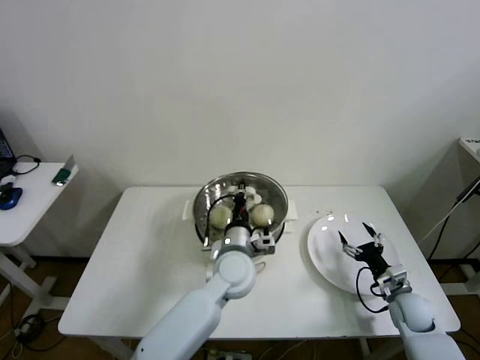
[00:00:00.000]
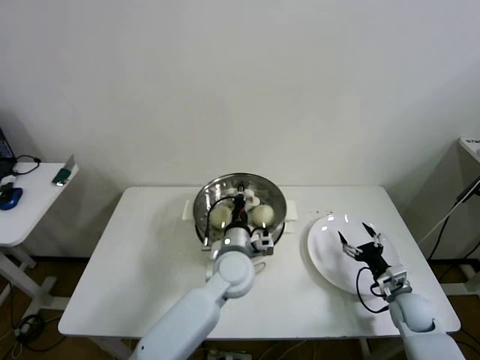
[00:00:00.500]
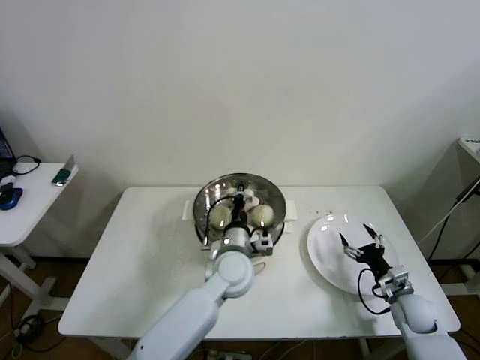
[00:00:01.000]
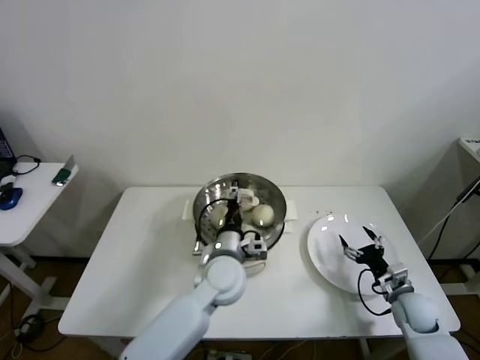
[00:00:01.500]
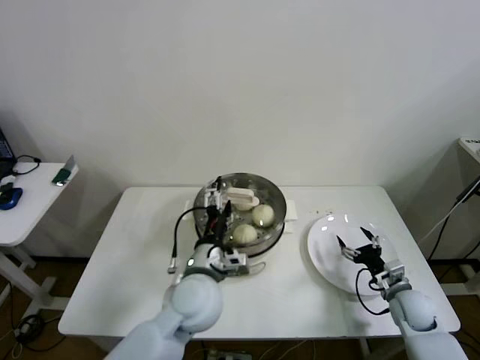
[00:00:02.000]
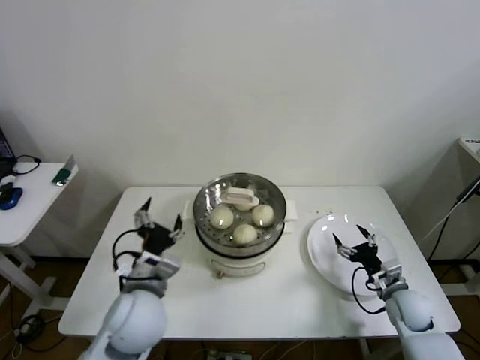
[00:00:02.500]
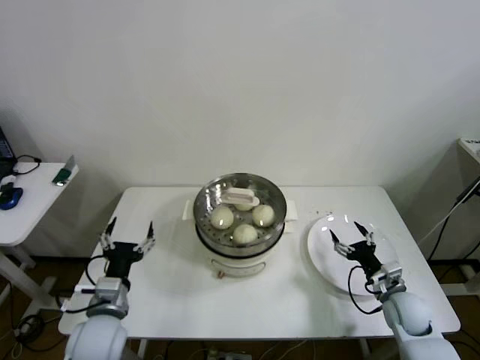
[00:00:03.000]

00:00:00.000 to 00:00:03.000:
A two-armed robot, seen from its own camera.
Step, 00:00:00.000 to 00:00:02.000: Place the pot lid on the steamer with left gripper.
00:00:00.000 to 00:00:01.500: The left gripper opens up.
00:00:01.500 to 00:00:03.000: The left gripper travels to the left and backward by some 25 cm, and opens its fingers.

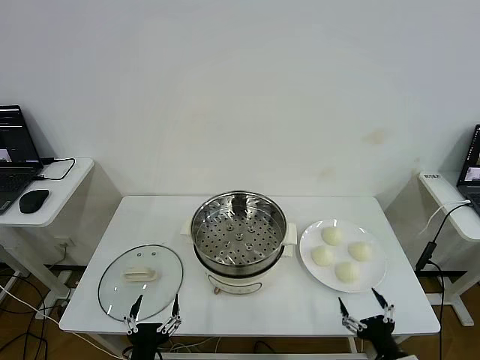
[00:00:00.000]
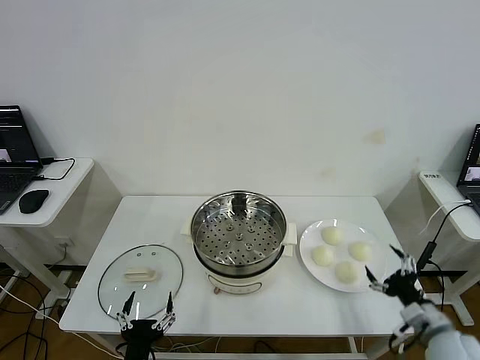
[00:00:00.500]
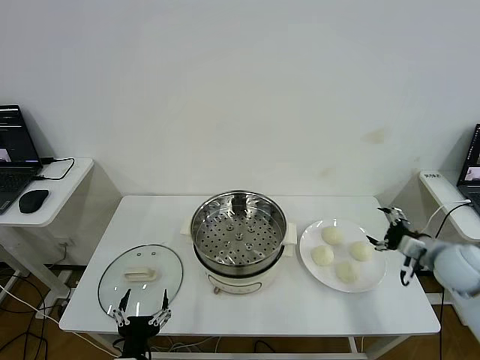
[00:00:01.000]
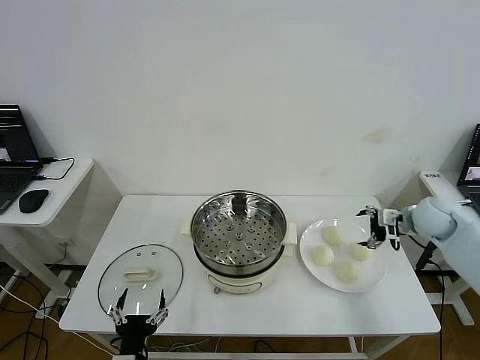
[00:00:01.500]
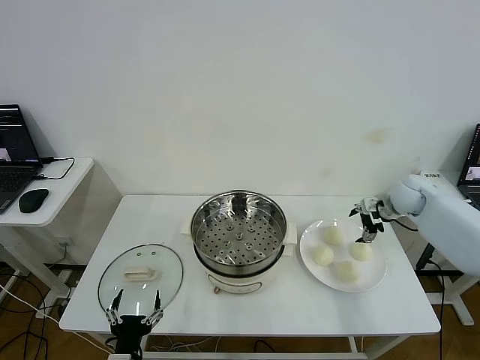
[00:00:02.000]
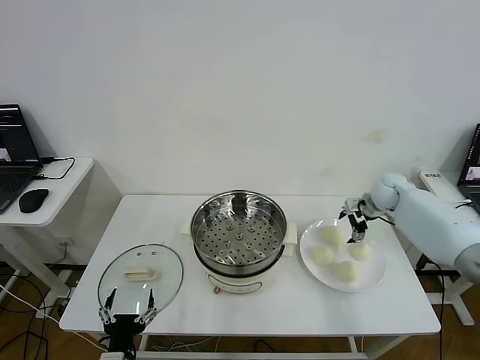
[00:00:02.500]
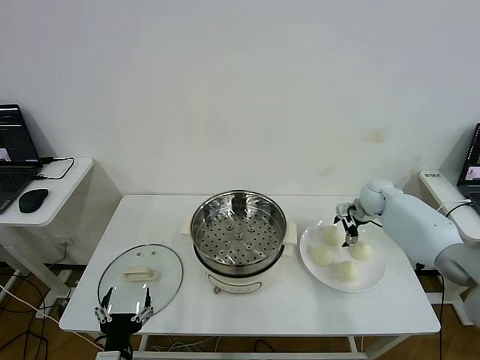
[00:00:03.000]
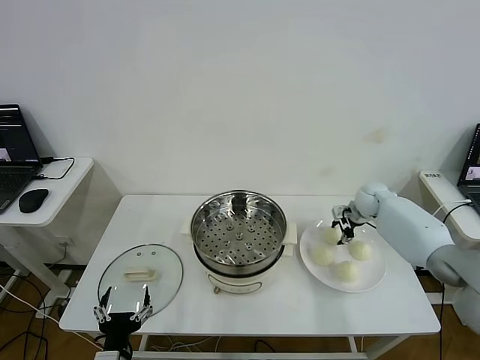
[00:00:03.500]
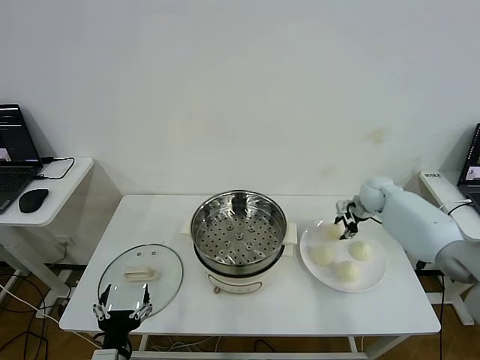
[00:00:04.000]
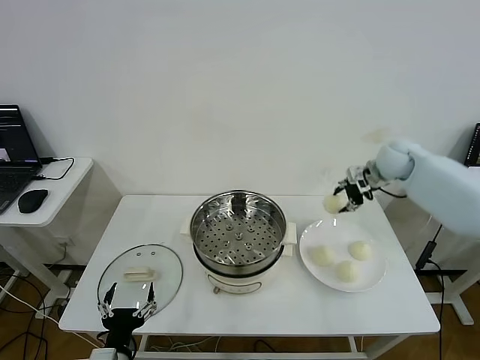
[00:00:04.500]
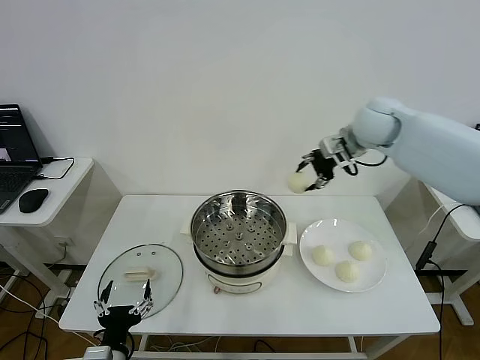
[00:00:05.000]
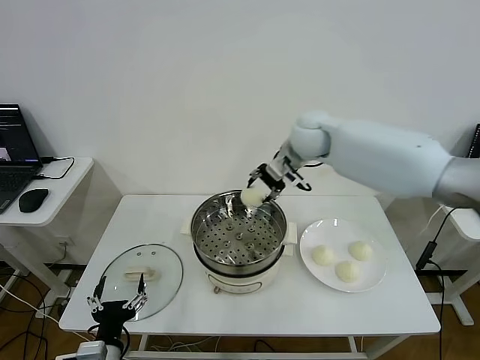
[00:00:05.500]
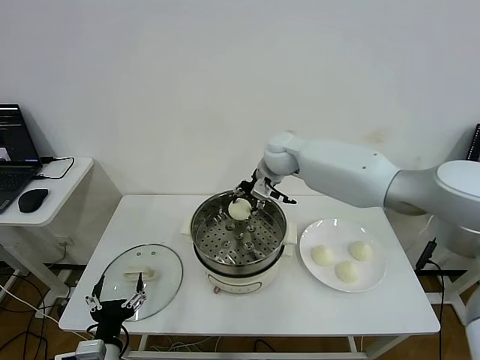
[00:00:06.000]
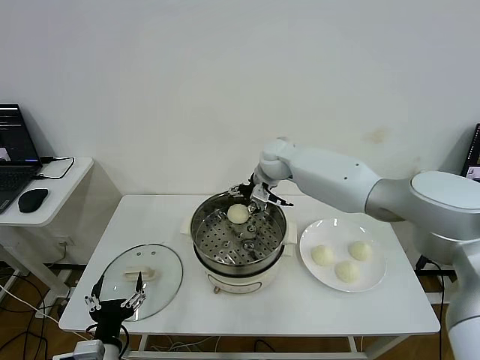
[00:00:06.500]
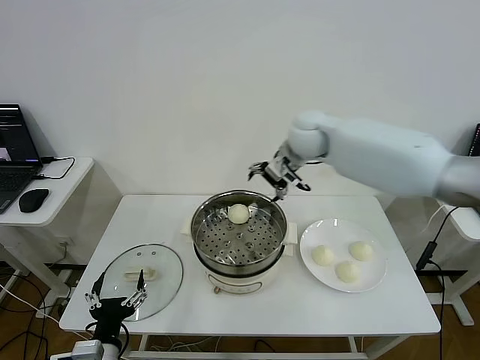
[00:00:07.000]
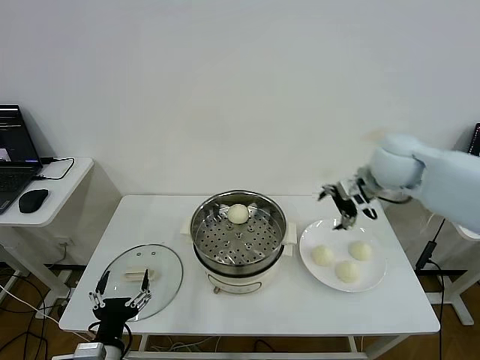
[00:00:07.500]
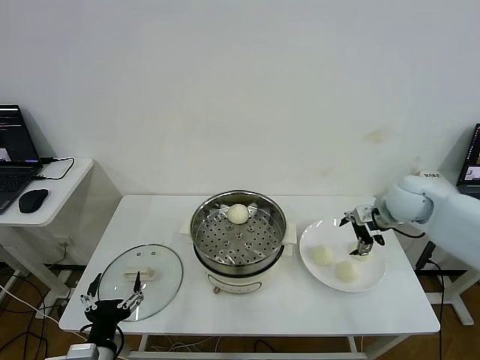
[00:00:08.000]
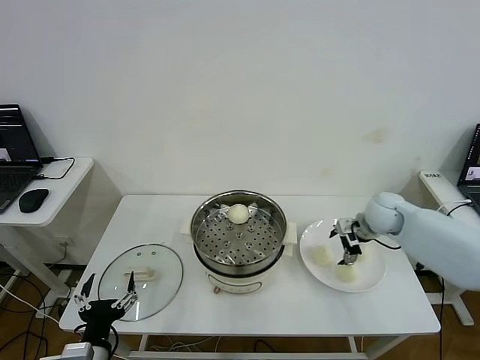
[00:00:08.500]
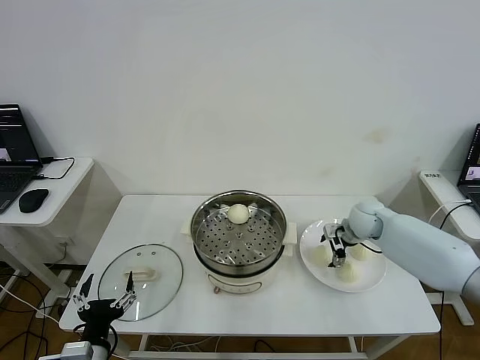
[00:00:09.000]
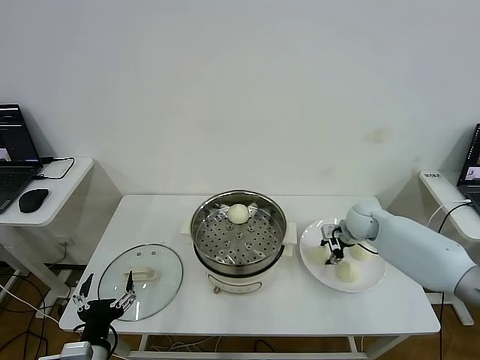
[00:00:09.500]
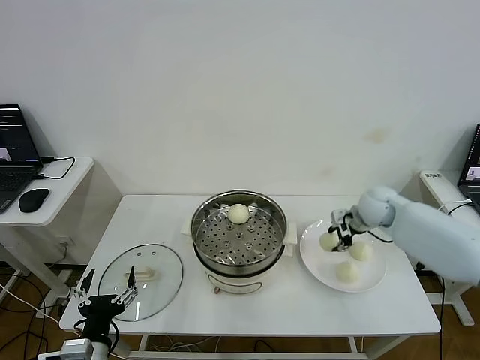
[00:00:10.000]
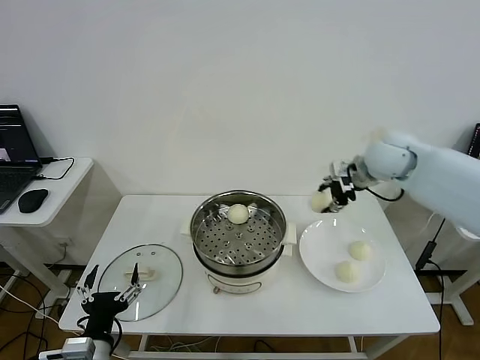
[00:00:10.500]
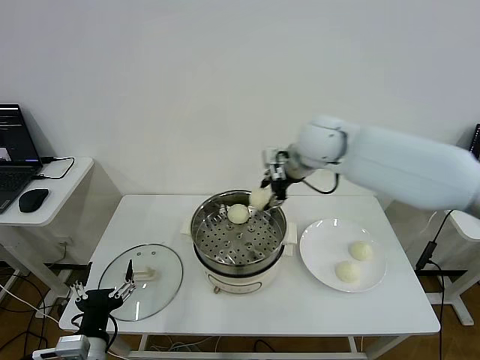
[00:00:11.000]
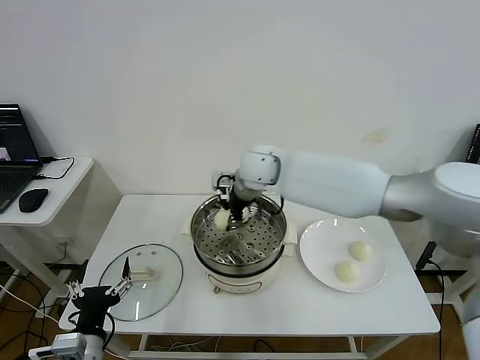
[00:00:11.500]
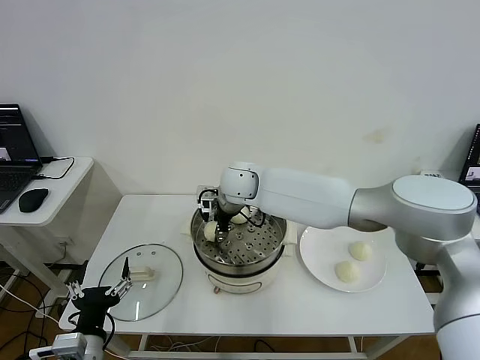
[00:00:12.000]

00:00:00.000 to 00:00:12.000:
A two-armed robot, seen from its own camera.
Step, 00:00:00.000 to 00:00:03.500: Grasp the baozi in the plate with right gripper.
Step, 00:00:04.000 to 00:00:06.000: Place the baozi on the steamer with right gripper.
Step, 00:00:06.500 to 00:00:09.000: Grasp the baozi in the plate with right gripper.
00:00:02.000 to 00:00:04.000: The right gripper closes up.
00:00:04.000 to 00:00:06.000: The right gripper goes approximately 30 cm to the left.
00:00:06.000 to 00:00:08.000: The right gripper goes about 30 cm to the right, and opens.
00:00:08.000 to 00:00:10.000: The right gripper travels downward and back again, roughly 10 cm each way, and closes up.
00:00:10.000 to 00:00:12.000: The right gripper moves to the left, some 35 cm, and opens.

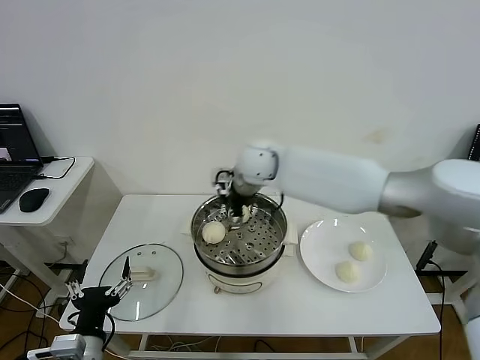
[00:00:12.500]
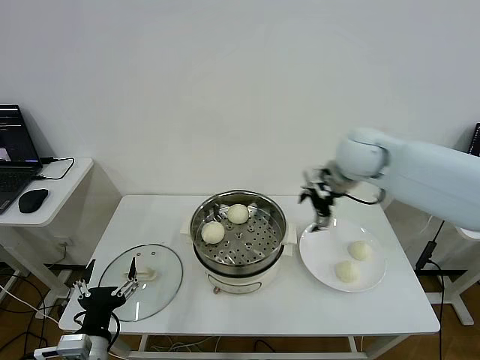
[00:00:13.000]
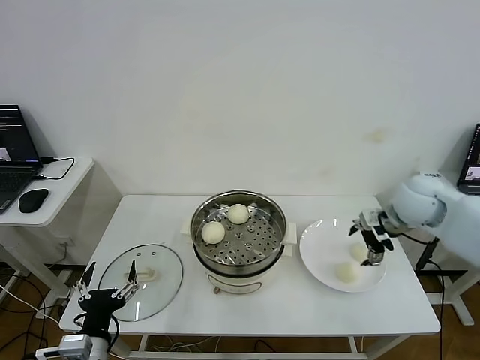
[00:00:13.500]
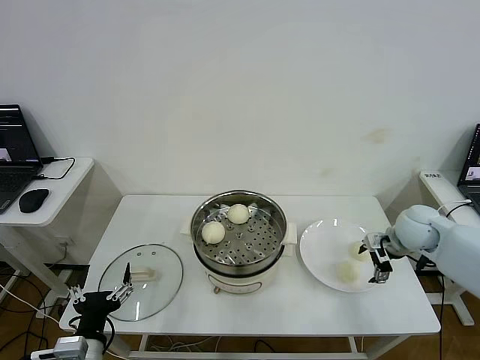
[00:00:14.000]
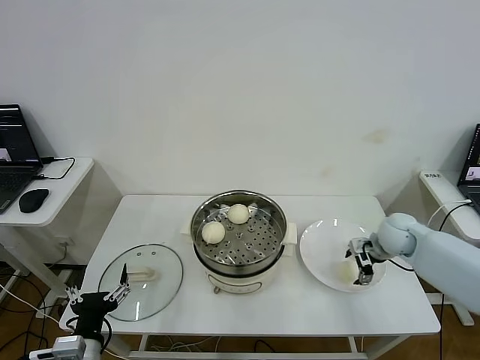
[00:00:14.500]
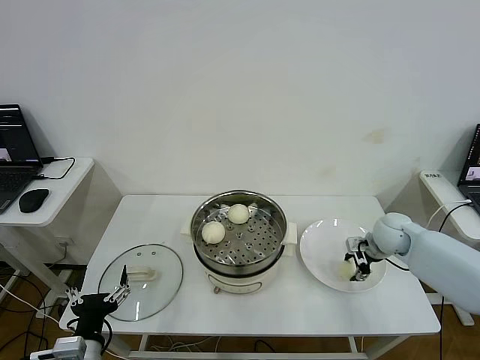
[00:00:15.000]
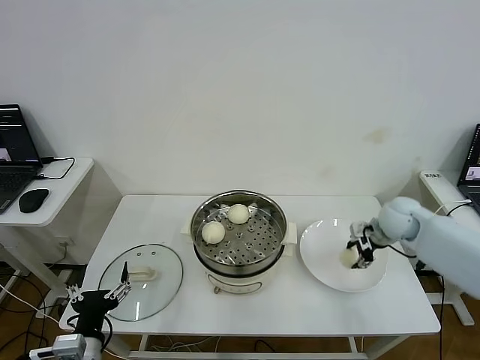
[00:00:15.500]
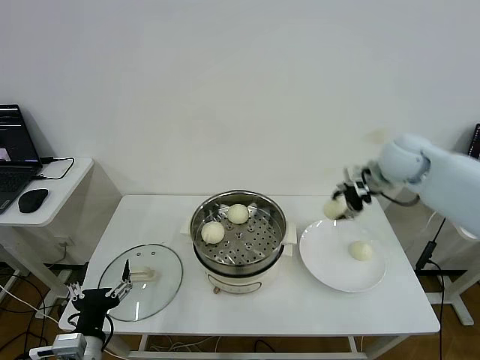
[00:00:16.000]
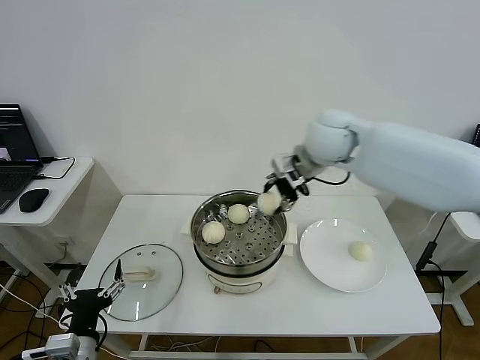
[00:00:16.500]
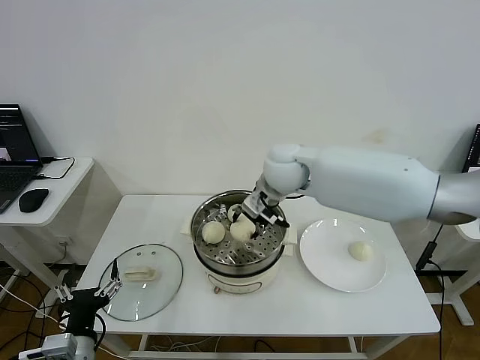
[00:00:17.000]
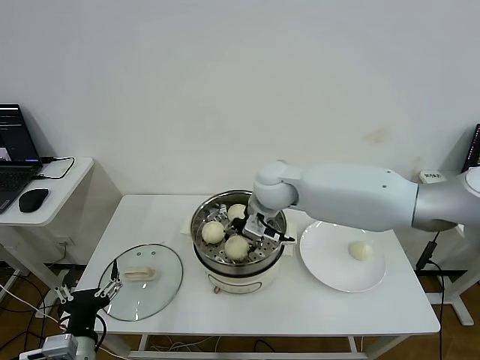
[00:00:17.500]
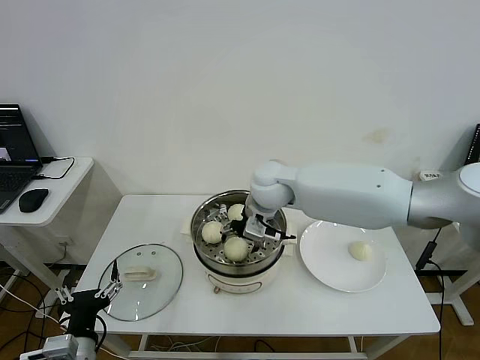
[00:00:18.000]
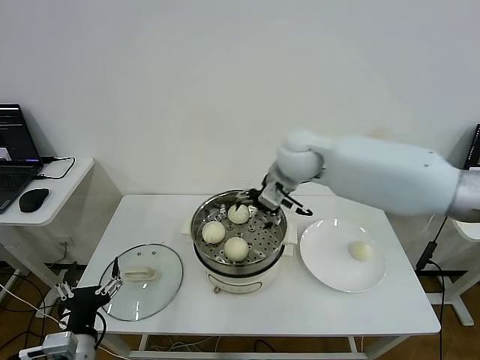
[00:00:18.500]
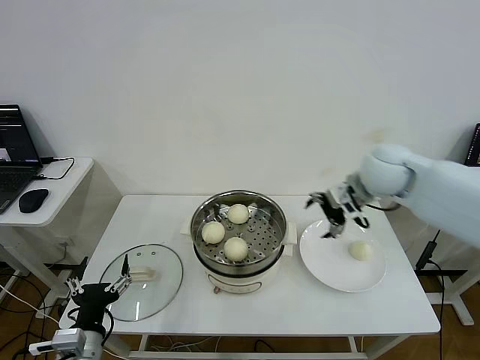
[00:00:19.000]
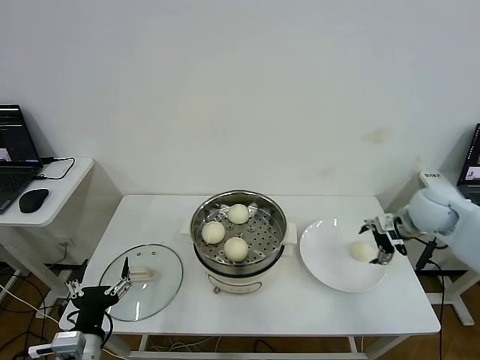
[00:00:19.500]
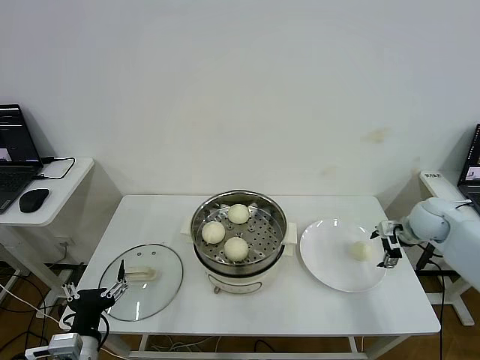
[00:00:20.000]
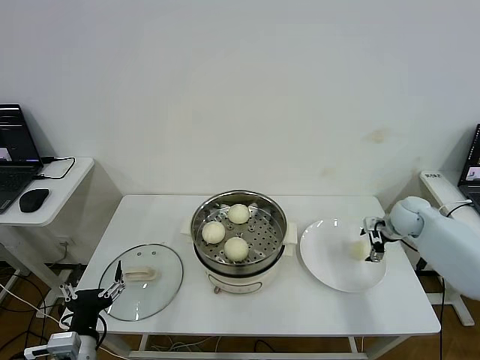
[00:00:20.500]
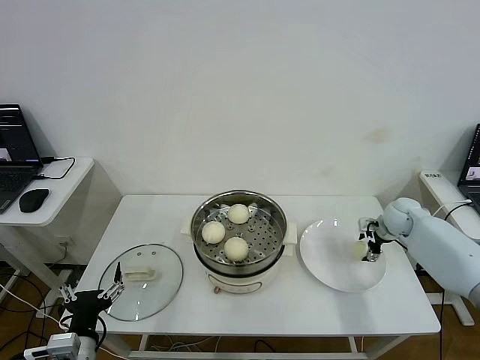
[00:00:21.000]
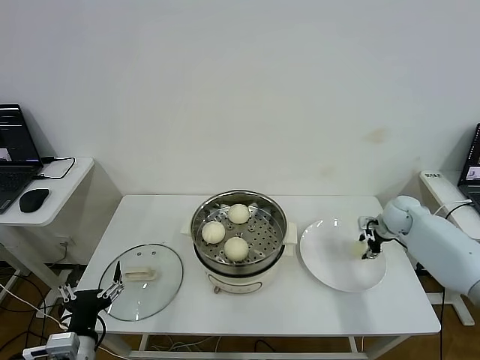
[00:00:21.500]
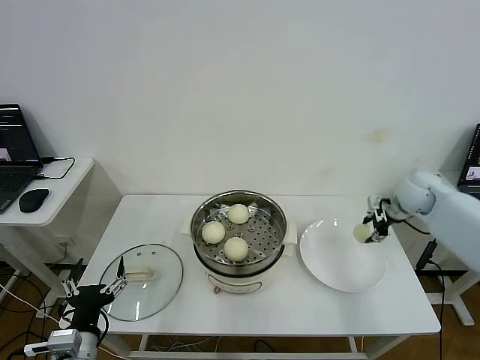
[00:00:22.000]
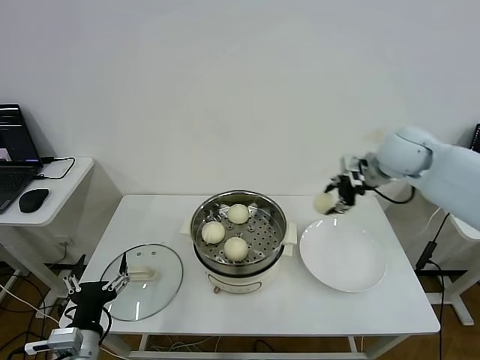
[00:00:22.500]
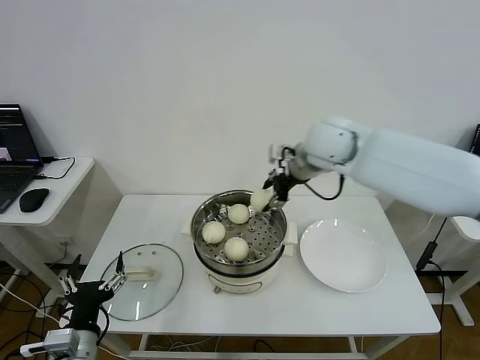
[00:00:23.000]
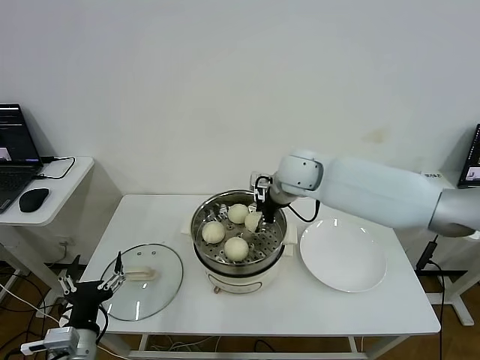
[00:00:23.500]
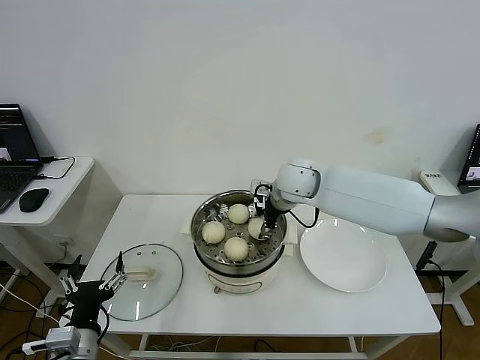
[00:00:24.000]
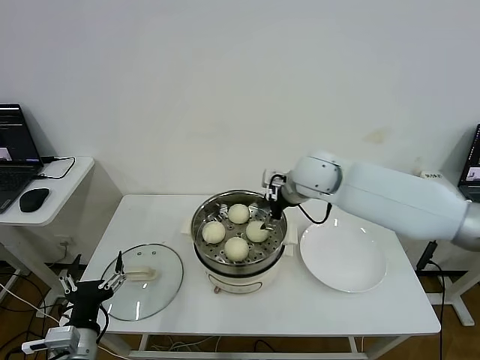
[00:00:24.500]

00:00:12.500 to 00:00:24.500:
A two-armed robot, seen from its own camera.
Step, 00:00:12.500 to 00:00:14.500: Grasp the baozi in the plate with right gripper.
Step, 00:00:15.000 to 00:00:17.500: Place the baozi on the steamer with right gripper.
Step, 00:00:18.000 to 00:00:21.500: Grasp the baozi in the plate with right gripper.
Step, 00:00:22.000 to 00:00:24.000: Place the baozi on the steamer with right gripper.
00:00:12.500 to 00:00:14.500: The right gripper goes some 35 cm to the right and downward.
00:00:14.500 to 00:00:16.500: The right gripper shifts some 35 cm upward and to the left, and closes its fingers.
00:00:16.500 to 00:00:18.500: The right gripper goes downward and returns, about 10 cm each way, and opens up.
00:00:18.500 to 00:00:20.500: The right gripper heads to the right and downward, covering roughly 35 cm.
00:00:20.500 to 00:00:22.500: The right gripper shifts some 25 cm upward and to the left, and closes its fingers.
00:00:22.500 to 00:00:24.500: The right gripper shifts approximately 15 cm to the left and downward, and opens its fingers.
